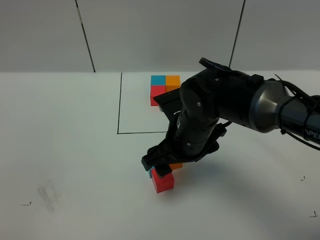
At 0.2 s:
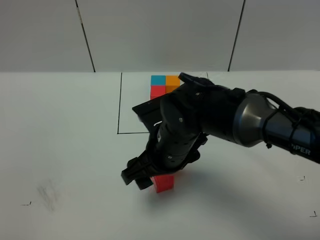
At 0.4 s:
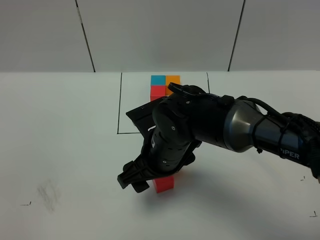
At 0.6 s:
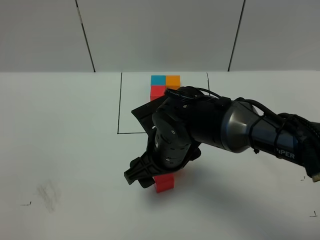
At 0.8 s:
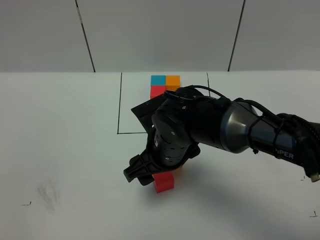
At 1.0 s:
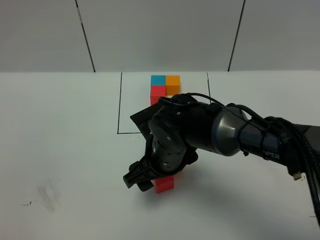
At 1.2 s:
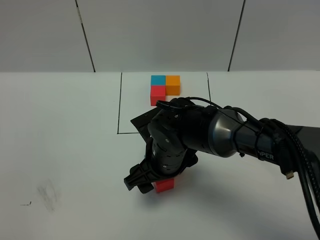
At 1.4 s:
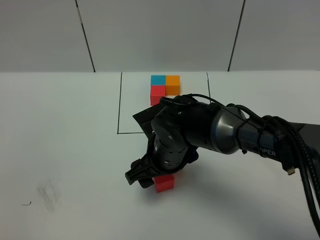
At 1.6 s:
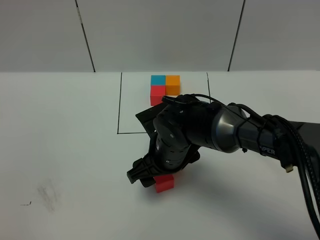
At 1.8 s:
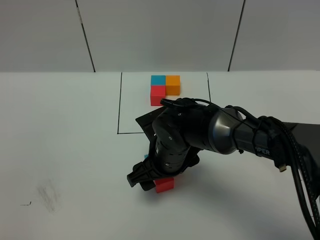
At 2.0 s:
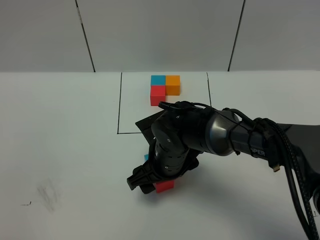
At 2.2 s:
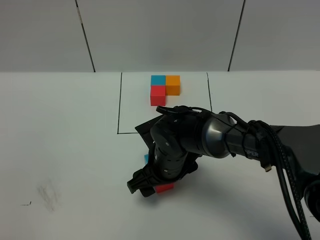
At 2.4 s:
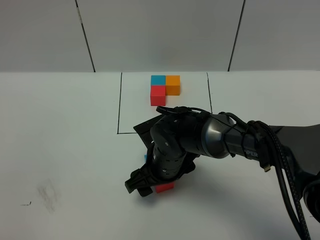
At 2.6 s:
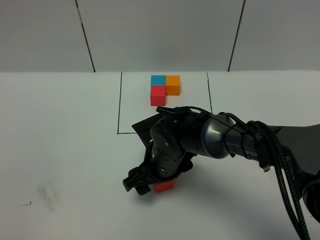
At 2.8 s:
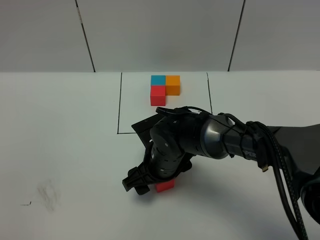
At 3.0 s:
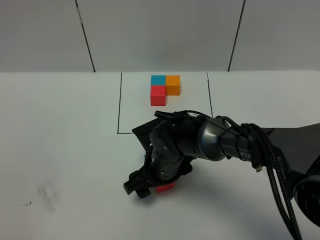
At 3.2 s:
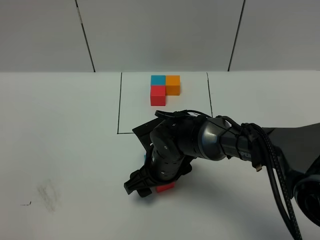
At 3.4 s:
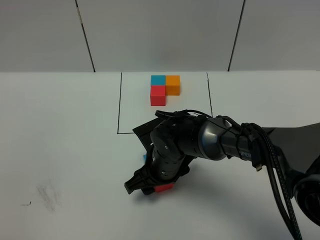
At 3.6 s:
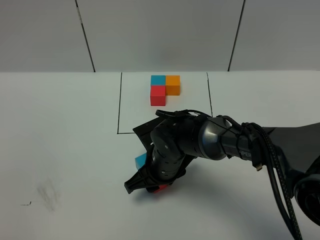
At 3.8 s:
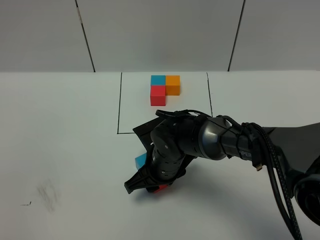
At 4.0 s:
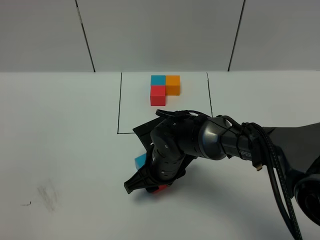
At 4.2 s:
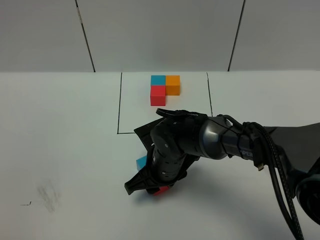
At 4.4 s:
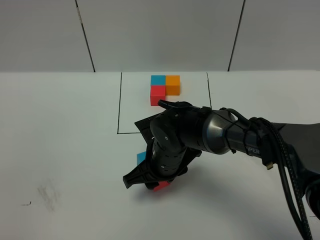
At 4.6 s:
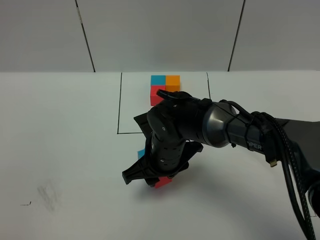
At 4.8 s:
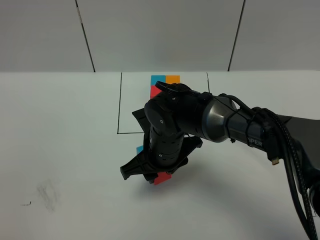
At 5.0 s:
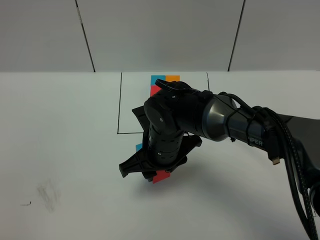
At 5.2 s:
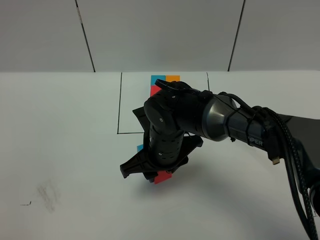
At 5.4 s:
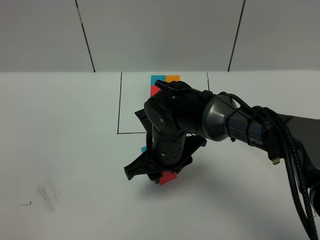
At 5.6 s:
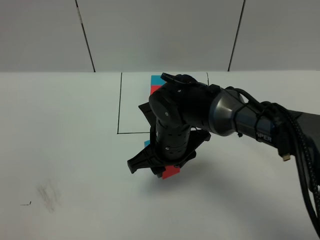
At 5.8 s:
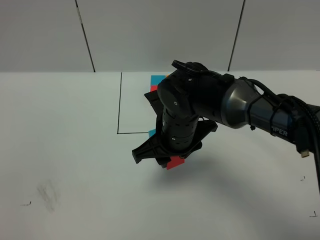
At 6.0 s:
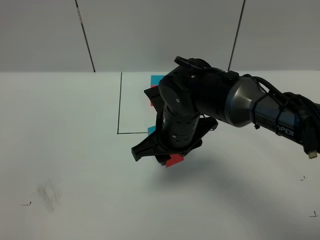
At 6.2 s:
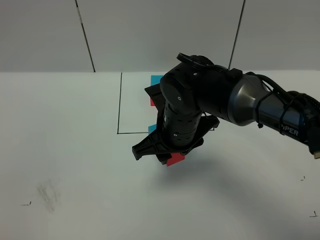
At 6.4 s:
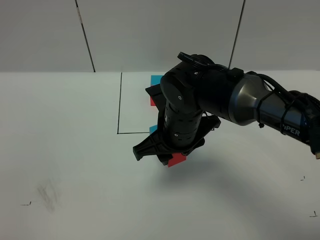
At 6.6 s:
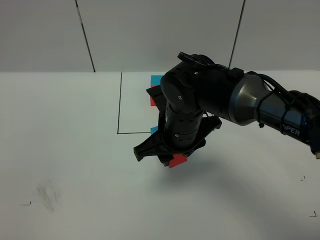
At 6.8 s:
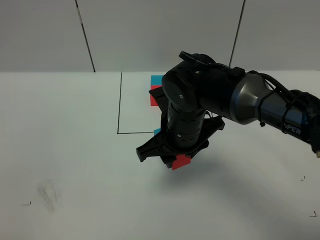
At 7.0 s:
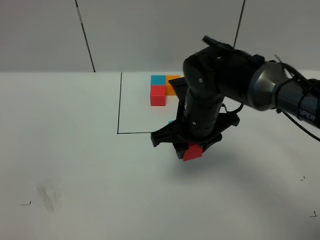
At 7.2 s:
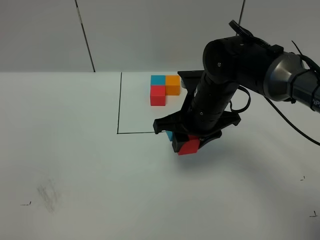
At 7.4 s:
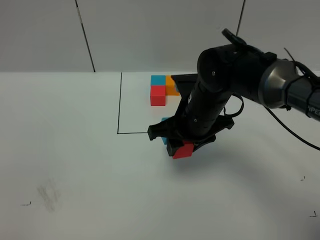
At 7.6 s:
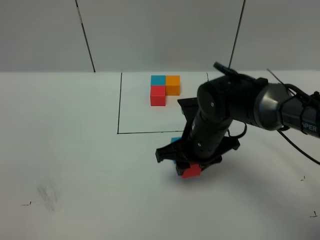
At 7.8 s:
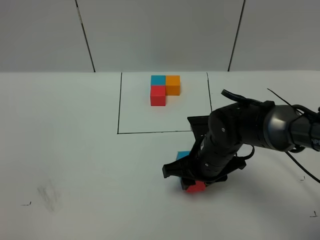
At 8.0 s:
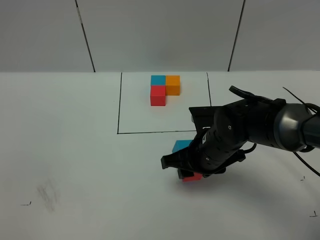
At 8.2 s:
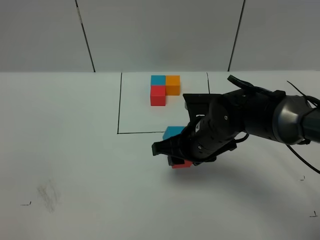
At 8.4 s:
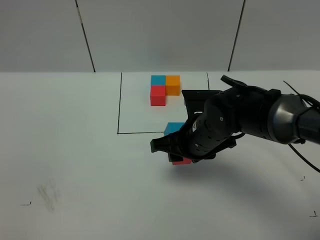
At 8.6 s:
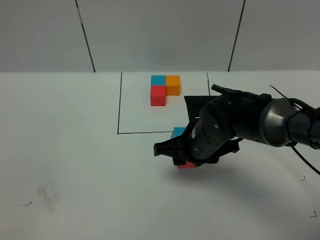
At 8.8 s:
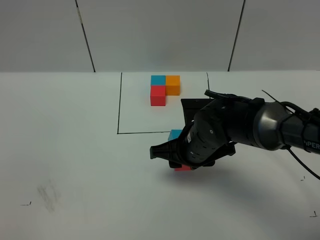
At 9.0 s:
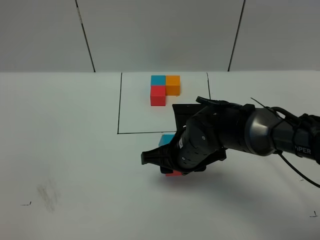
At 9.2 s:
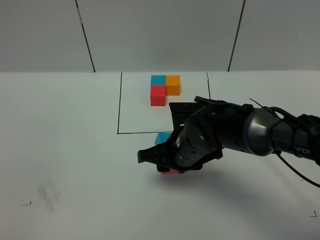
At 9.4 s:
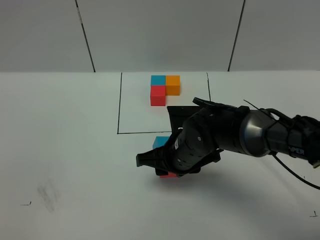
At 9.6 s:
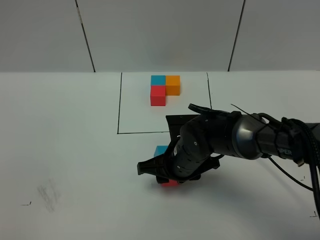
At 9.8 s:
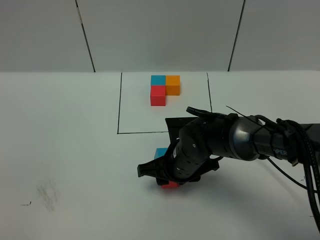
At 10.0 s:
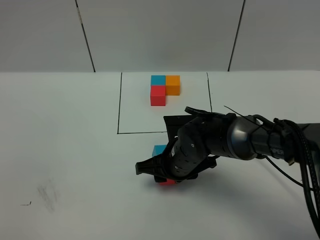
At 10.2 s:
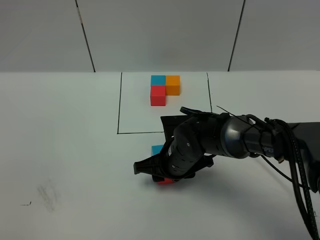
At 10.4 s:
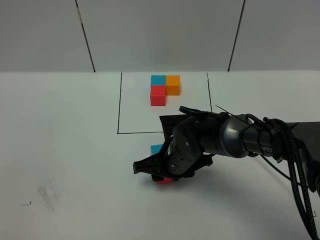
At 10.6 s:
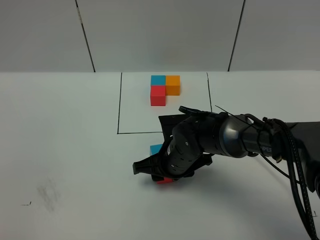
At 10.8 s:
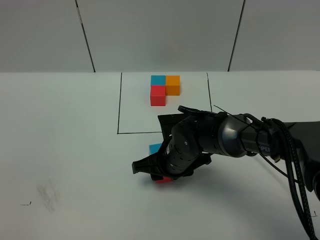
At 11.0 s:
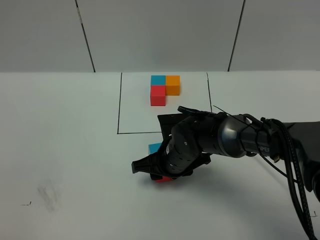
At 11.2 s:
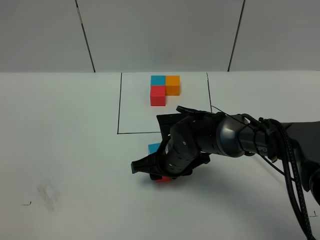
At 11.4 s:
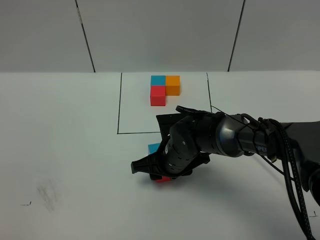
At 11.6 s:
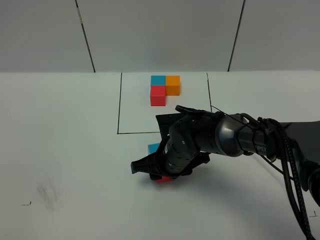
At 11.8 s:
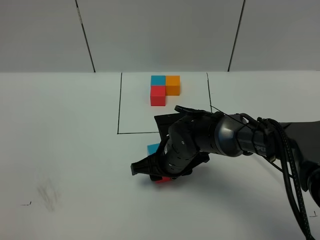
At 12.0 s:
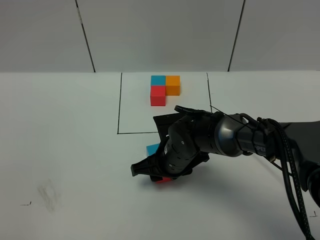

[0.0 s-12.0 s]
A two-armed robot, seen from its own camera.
Task of the whole recording: According to the building block template in front, assemble the scattered blocks together.
0.0 to 1.6 s: The right gripper heads downward, covering about 5 cm.
1.6 to 3.0 s: The grippers stay close to where they were, moving slightly.
3.0 to 4.4 s: The right gripper closes its fingers.
4.4 to 6.0 s: The right gripper goes about 5 cm upward.
6.0 to 7.6 s: The right gripper heads to the right, covering about 5 cm.
7.6 to 9.0 s: The grippers move only a little.
9.0 to 12.0 s: The grippers make only small movements.

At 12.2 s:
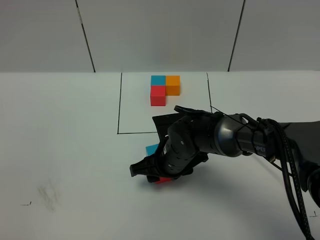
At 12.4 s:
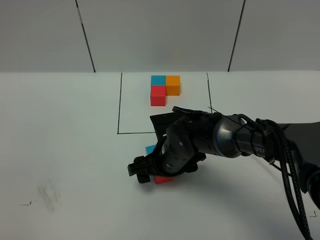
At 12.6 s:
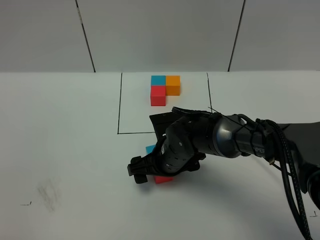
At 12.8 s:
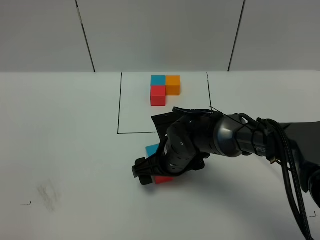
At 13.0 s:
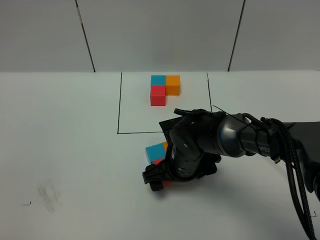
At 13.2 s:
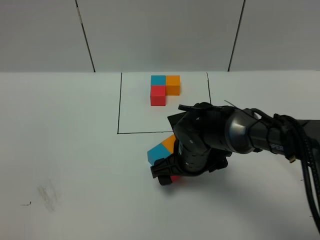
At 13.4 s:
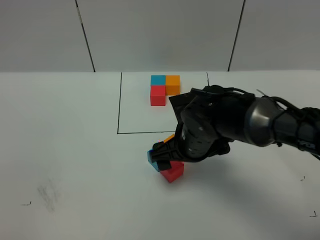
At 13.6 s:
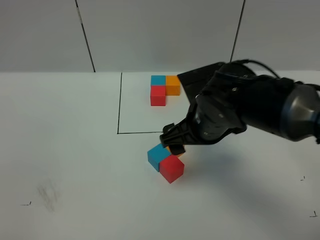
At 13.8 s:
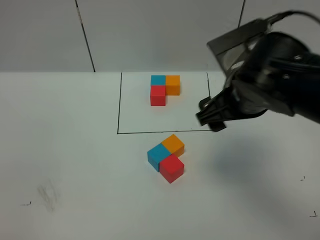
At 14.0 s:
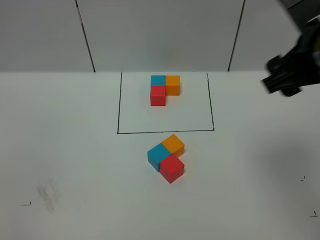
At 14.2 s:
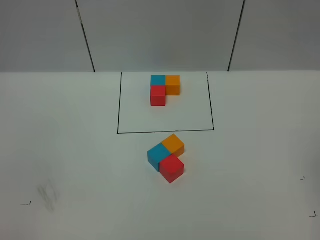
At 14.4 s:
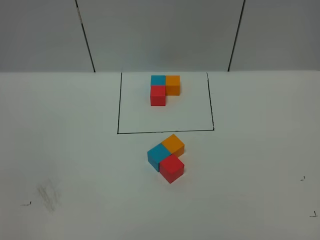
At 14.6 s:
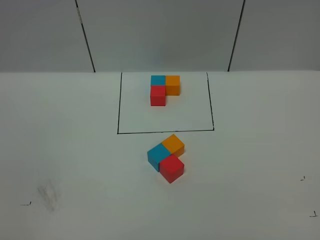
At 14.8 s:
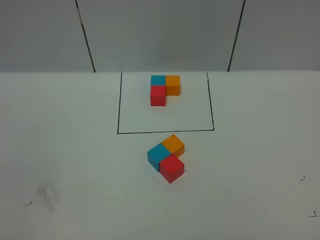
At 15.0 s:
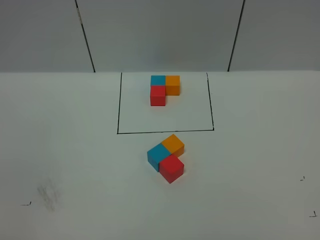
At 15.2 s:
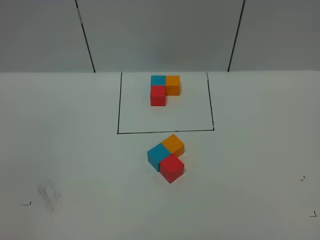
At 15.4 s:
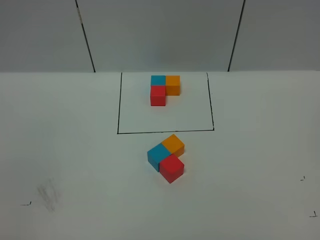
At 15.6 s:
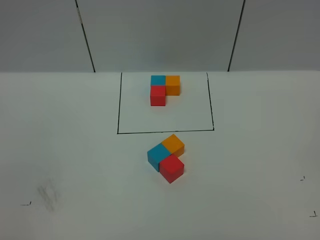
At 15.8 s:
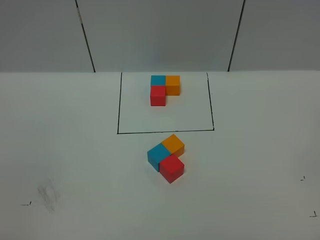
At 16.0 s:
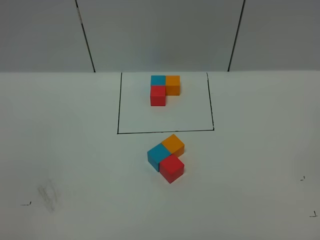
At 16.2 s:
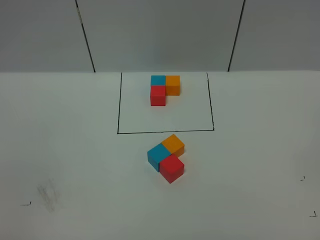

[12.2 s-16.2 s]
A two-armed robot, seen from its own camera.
Task of the whole recording: According to the building block template in front, assemble the scattered blocks together.
12.2 to 13.6 s: The right gripper goes about 15 cm upward, and opens its fingers.
13.6 to 14.8 s: The right gripper goes some 50 cm backward, to the right and upward.
